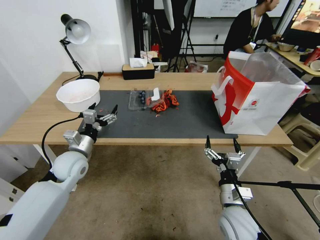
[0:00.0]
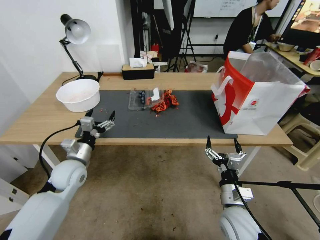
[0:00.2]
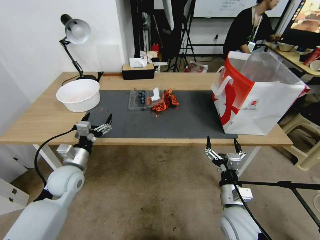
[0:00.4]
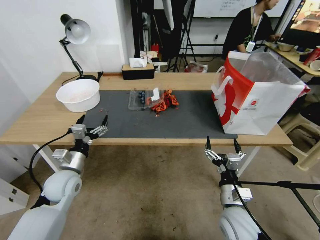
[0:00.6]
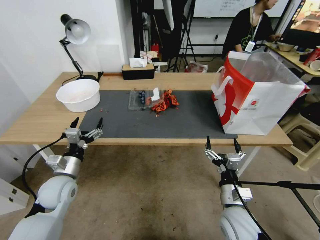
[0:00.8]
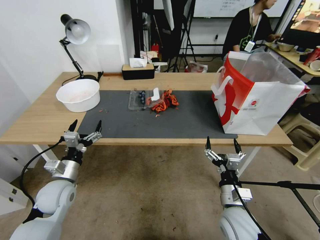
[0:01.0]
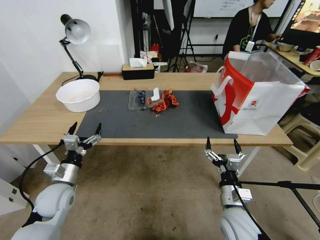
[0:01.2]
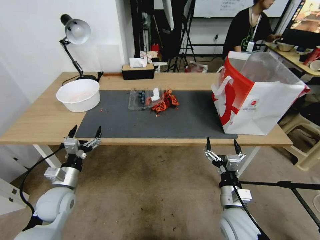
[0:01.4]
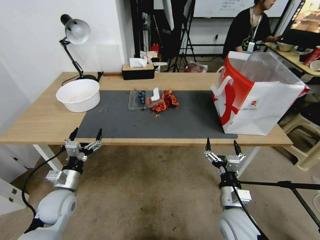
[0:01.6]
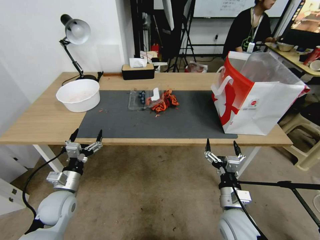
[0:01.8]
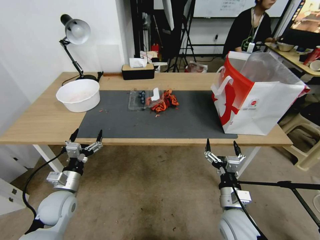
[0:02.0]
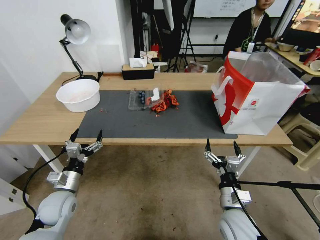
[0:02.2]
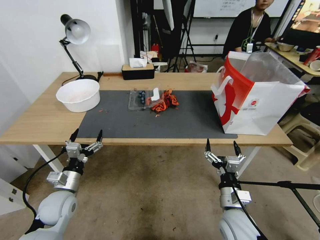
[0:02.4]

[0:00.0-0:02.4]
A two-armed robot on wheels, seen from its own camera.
0:00.0 to 0:01.2: The left gripper moves backward, roughly 10 cm.
0:01.2 to 0:02.4: The grippers make only small movements.
